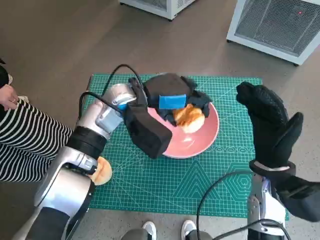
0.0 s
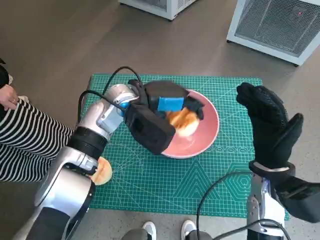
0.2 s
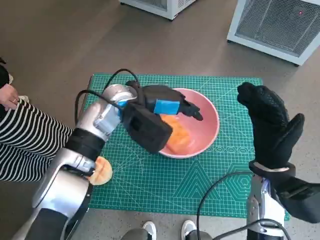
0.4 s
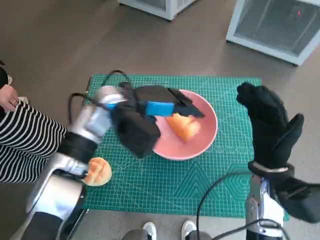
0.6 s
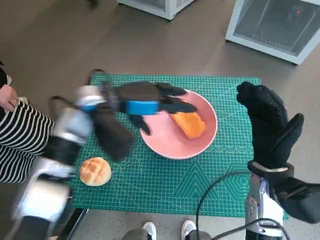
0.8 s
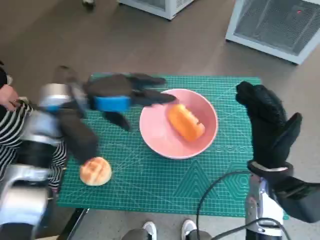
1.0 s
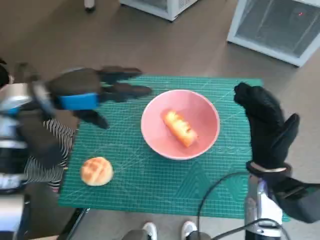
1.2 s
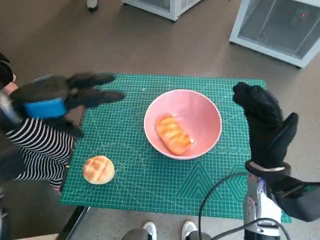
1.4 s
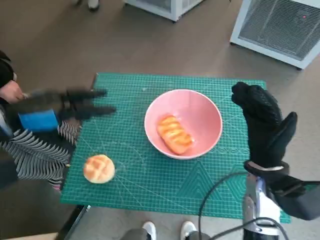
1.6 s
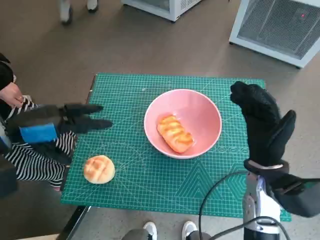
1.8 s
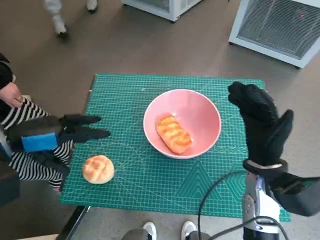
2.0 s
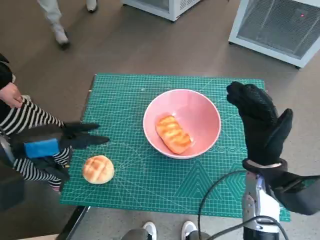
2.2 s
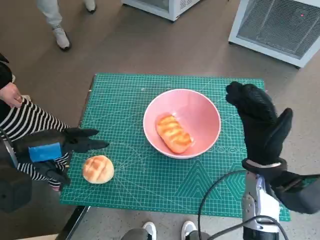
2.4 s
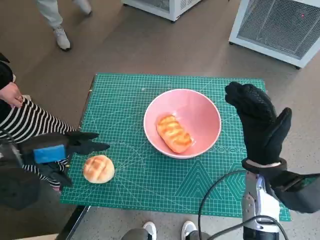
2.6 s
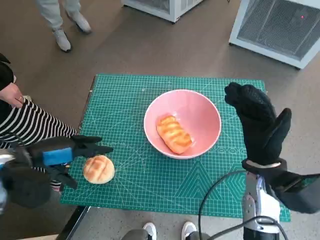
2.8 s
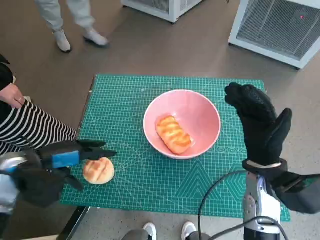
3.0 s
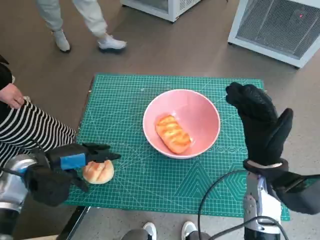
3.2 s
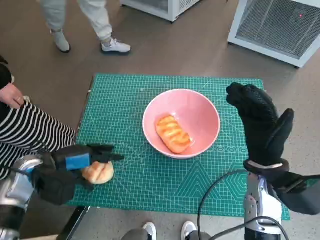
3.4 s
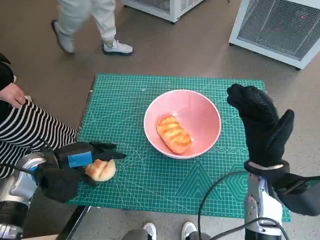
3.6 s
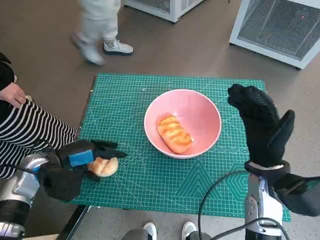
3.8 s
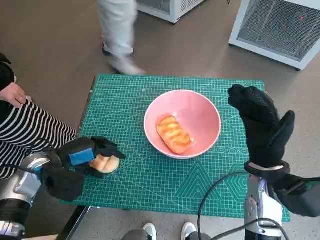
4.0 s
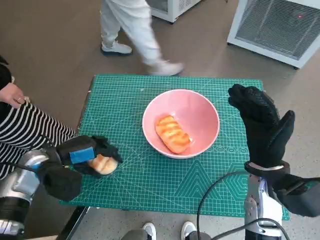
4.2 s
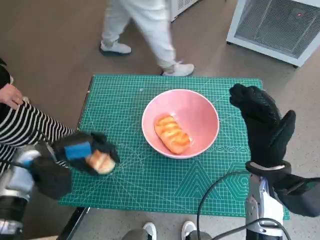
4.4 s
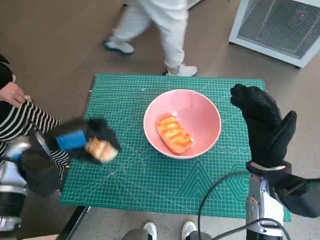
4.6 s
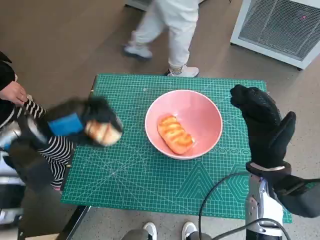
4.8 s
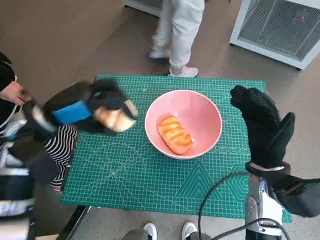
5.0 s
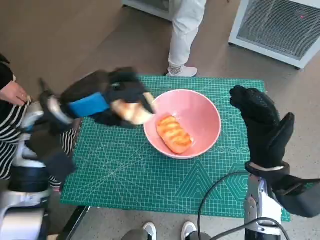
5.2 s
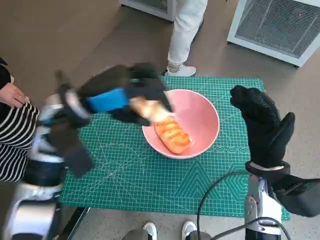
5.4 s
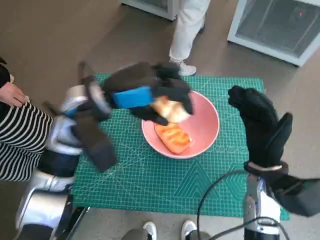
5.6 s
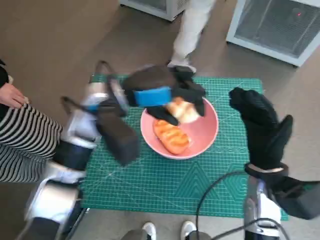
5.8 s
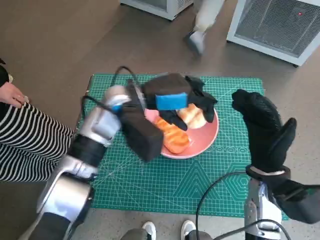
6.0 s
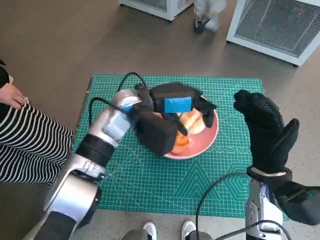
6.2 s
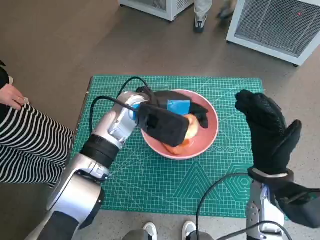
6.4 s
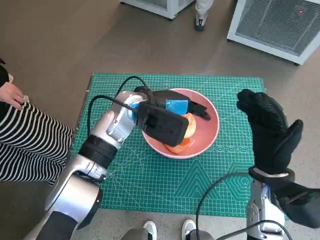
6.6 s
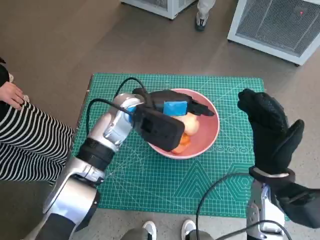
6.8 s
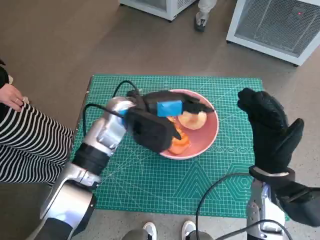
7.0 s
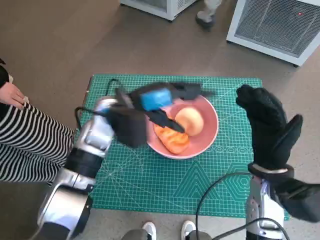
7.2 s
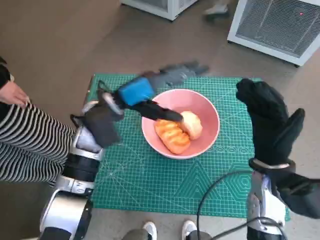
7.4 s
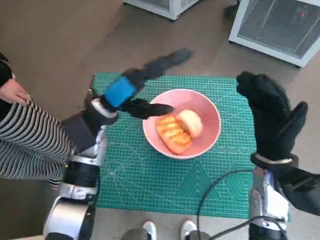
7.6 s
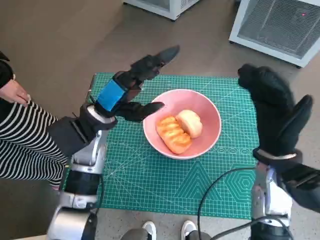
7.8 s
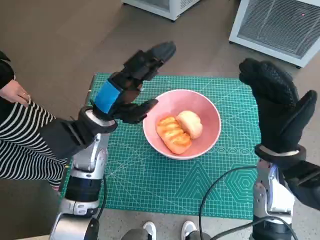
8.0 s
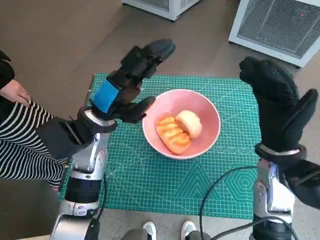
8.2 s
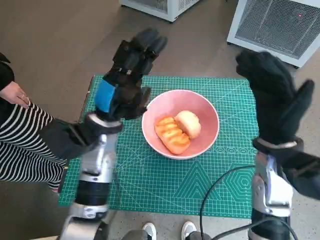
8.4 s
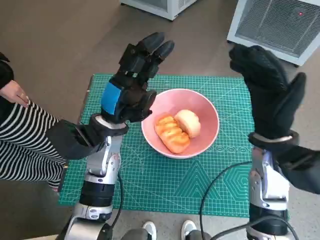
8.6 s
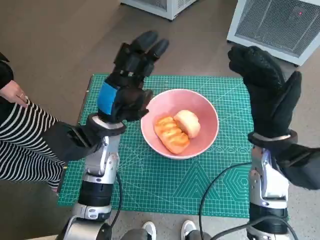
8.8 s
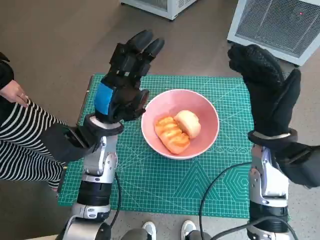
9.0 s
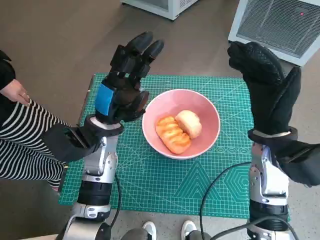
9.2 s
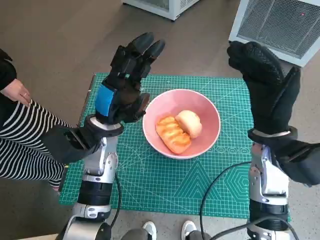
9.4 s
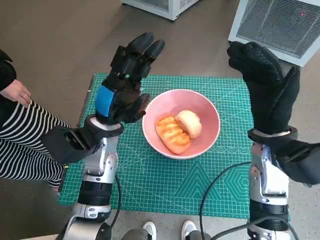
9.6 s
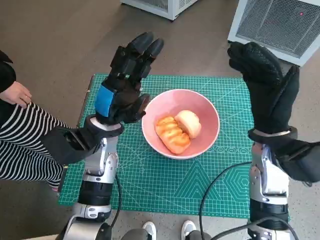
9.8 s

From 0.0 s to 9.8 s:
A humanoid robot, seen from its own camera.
Task of the whole recording: Push the bowl into the center of the table and put the bread into the bowl.
Step, from 1.0 s to 4.2 s: Grasp the round bread with left hand.
Step, from 4.4 s to 7.2 s: Place the round bread in pink bowl with left hand.
From 0.0 s to 1.4 s: The left hand shifts approximately 20 cm to the left.
From 1.4 s to 2.8 s: The left hand travels downward and backward by approximately 10 cm.
From 2.8 s to 4.2 s: The left hand goes some 5 cm downward.
From 4.2 s to 5.6 s: The left hand moves upward and to the right, about 20 cm.
From 5.6 s to 7.0 s: The left hand goes approximately 10 cm downward and to the right.
From 7.0 s to 8.4 s: The left hand changes place by roughly 5 cm, while the right hand travels upward by about 5 cm.
From 8.4 s to 9.8 s: The hands stay close to where they were, moving slightly.

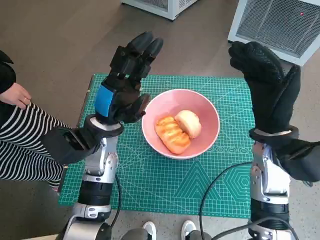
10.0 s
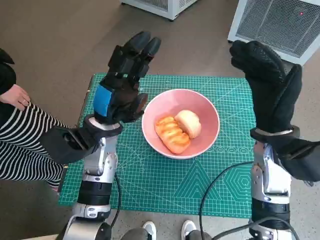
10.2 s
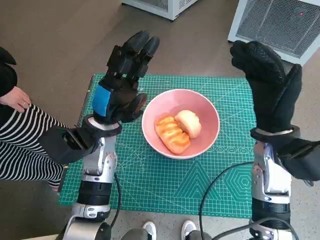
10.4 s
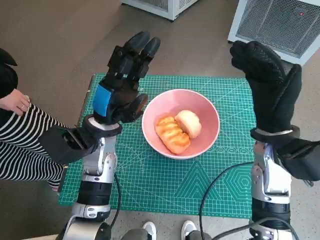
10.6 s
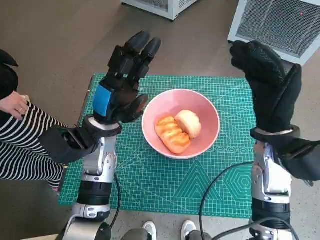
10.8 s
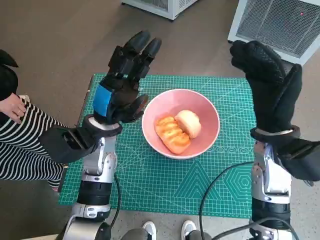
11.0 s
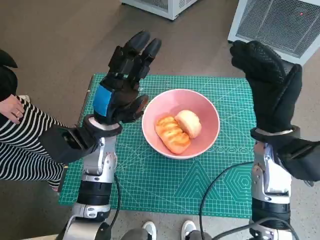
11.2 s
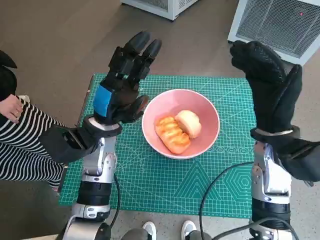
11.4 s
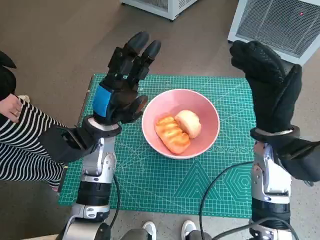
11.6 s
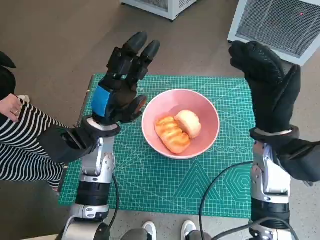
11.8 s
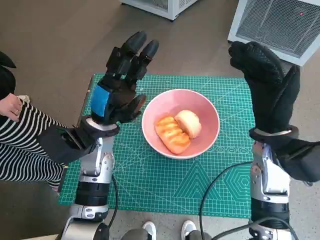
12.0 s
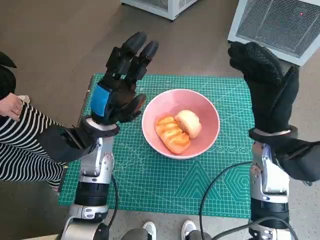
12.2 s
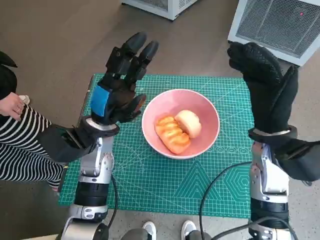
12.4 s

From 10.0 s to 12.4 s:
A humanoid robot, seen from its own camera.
Task of the whole recording: Push the bowl into the center of the table and put the bread into the bowl.
From 10.0 s to 12.4 s: Neither hand changes place.

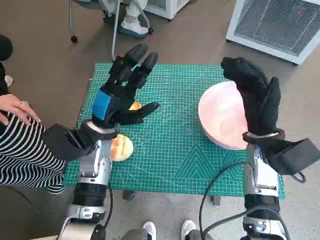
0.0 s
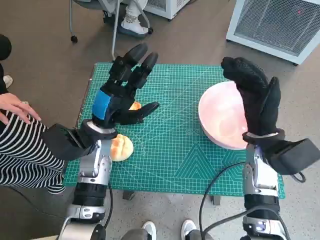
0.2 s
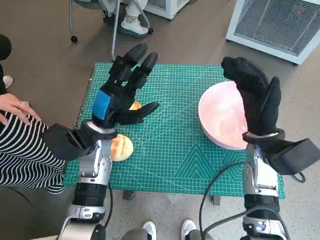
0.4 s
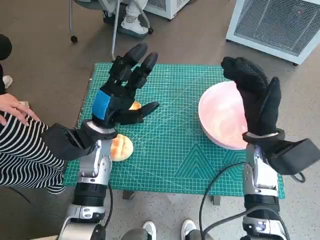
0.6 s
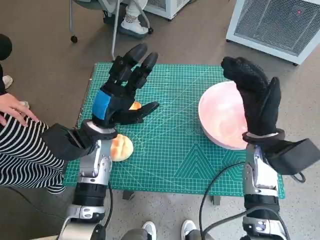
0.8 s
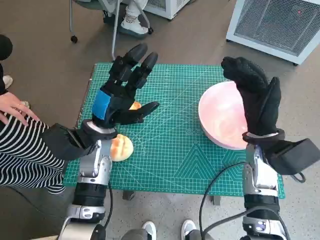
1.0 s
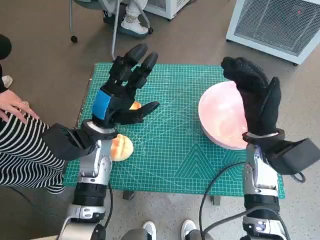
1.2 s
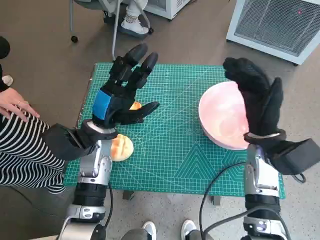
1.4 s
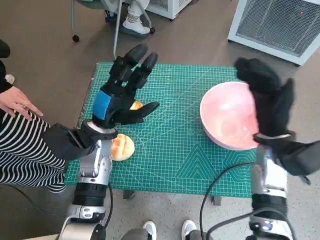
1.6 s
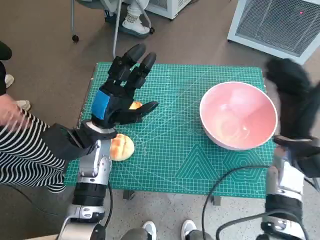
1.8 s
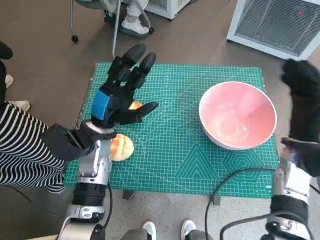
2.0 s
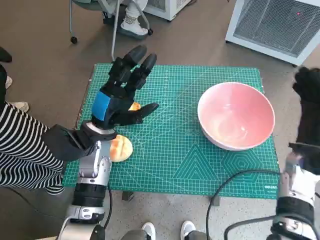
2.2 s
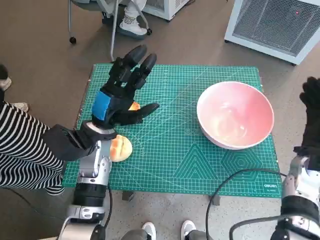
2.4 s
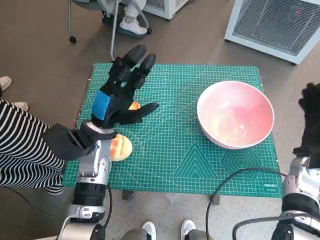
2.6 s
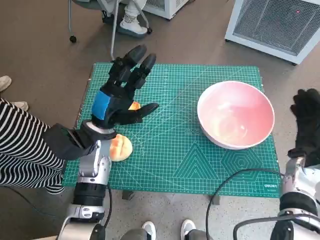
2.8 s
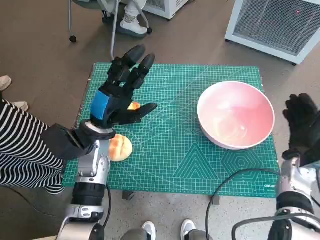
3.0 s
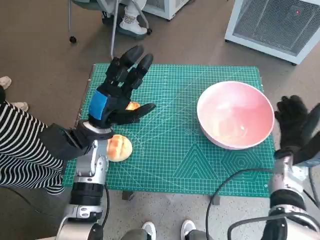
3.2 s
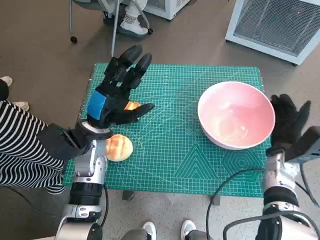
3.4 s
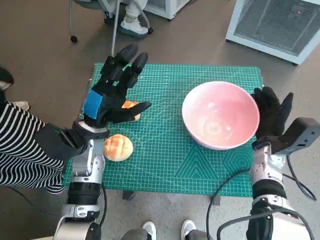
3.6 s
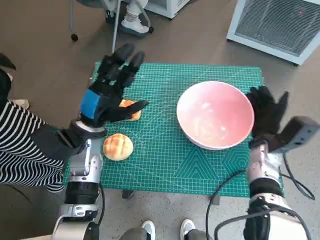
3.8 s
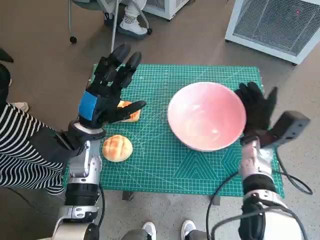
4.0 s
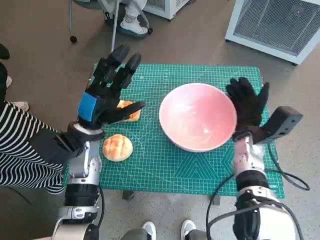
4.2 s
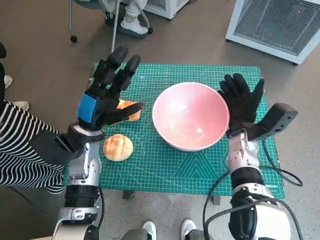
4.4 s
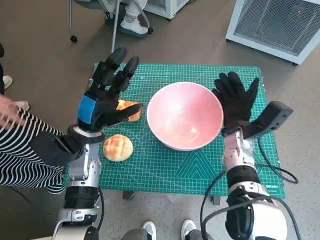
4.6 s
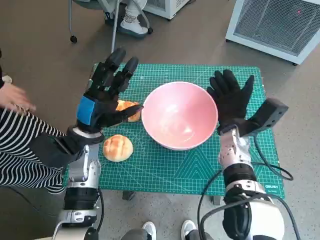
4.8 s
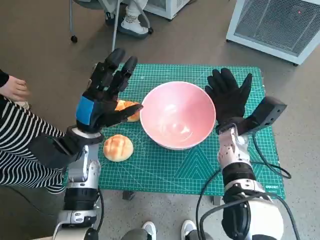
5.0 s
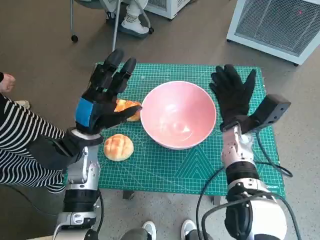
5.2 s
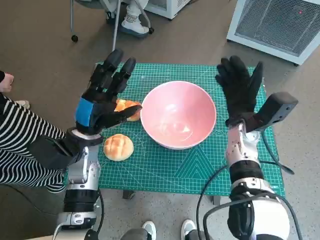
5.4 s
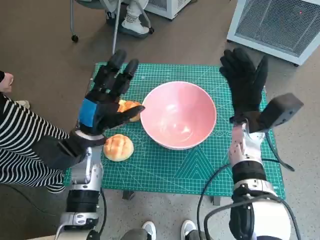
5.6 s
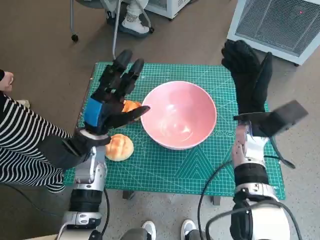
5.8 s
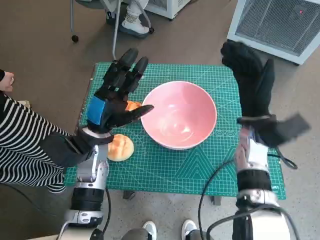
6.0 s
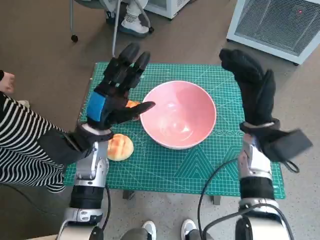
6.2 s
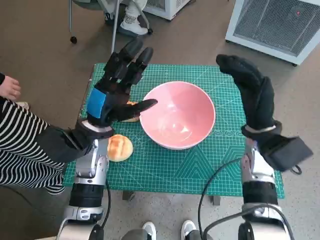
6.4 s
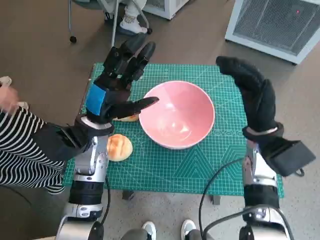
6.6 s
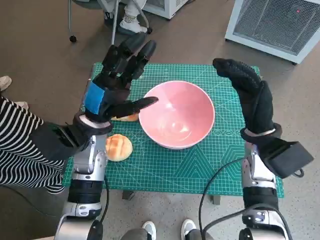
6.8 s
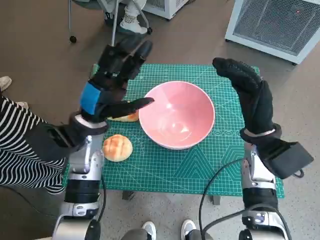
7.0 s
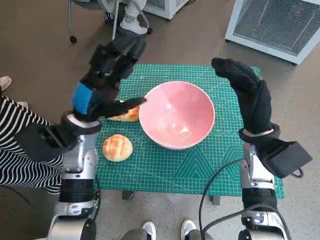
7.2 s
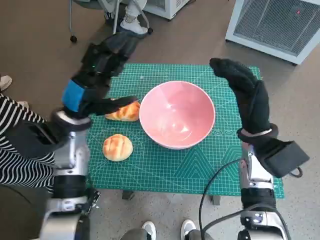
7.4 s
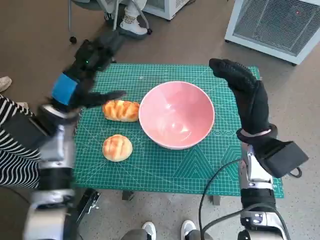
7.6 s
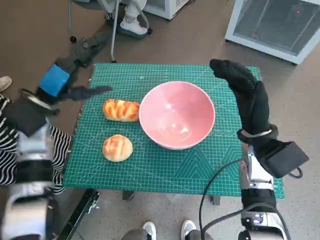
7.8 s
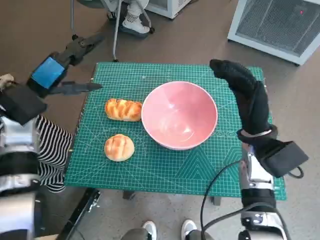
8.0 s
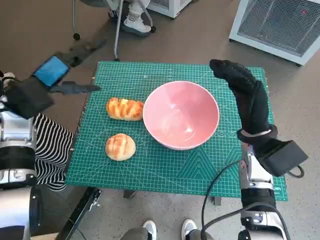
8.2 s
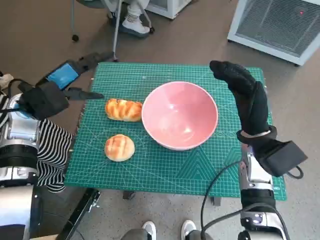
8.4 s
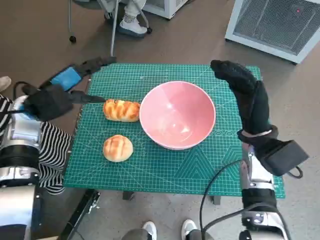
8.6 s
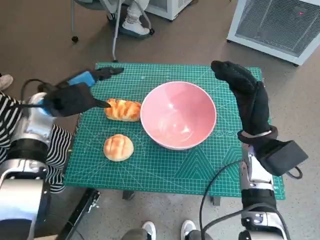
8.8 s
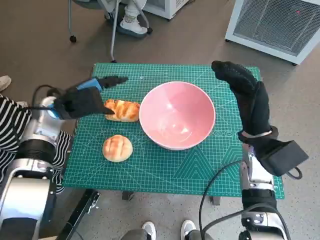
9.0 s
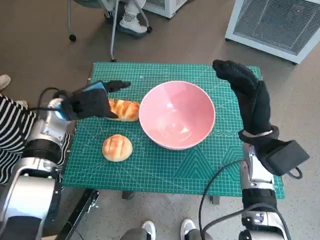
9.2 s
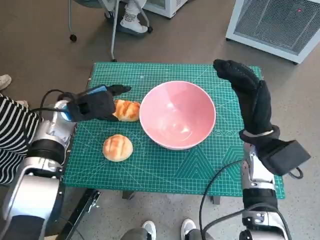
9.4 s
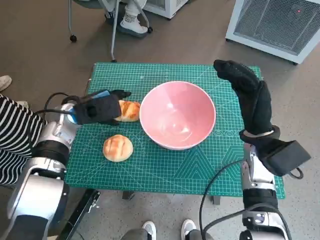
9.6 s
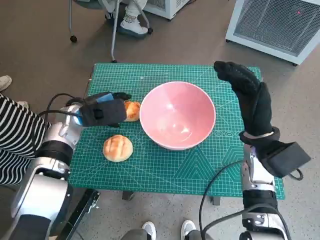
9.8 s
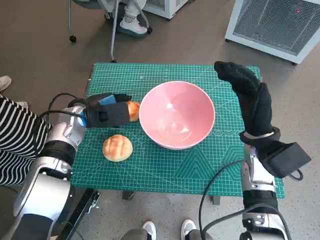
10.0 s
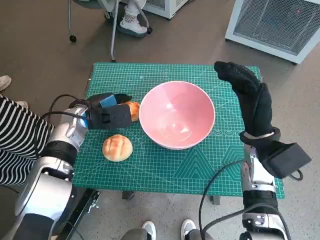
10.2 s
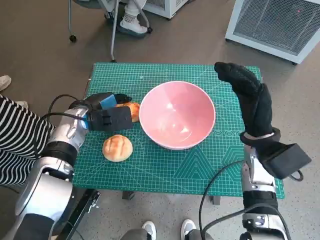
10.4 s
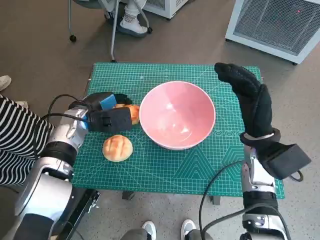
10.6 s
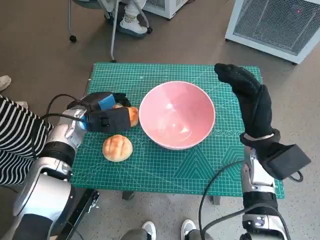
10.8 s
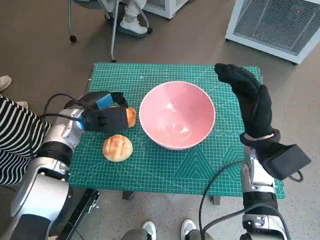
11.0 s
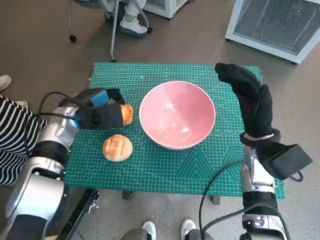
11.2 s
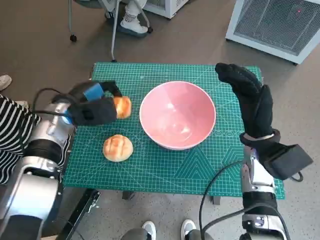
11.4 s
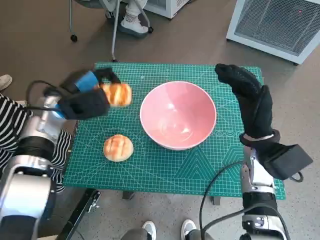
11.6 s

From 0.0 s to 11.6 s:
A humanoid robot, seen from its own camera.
Task of the whole recording: Push the bowl into the center of the table and put the bread into the bowl.
Step, from 0.0 s to 5.2 s: Move the pink bowl to the center of table with right hand.
Step, from 5.4 s to 10.6 s: Grasp the long bread with left hand.
From 1.4 s to 2.8 s: The right hand moves to the right and downward, some 15 cm.
From 2.8 s to 4.4 s: The right hand is displaced to the left by some 10 cm.
From 7.2 s to 8.8 s: The left hand travels to the left by some 10 cm.
From 8.8 s to 10.2 s: The left hand travels downward by roughly 5 cm.
